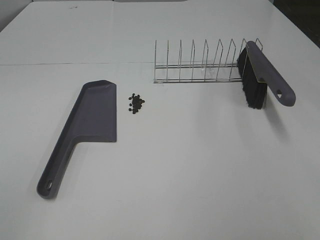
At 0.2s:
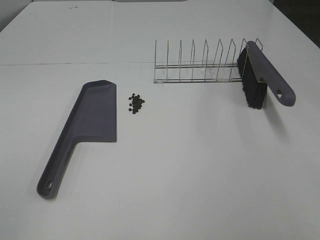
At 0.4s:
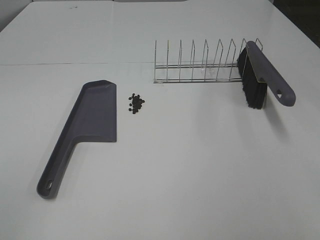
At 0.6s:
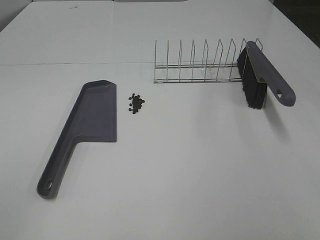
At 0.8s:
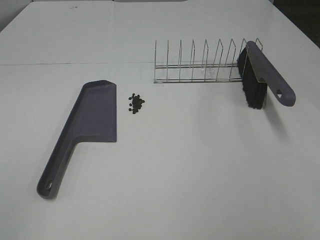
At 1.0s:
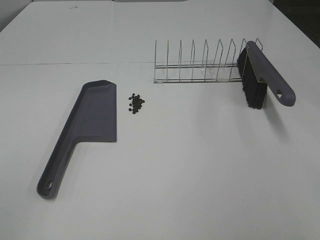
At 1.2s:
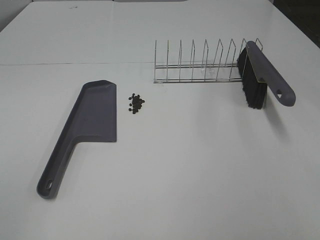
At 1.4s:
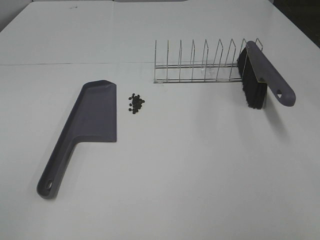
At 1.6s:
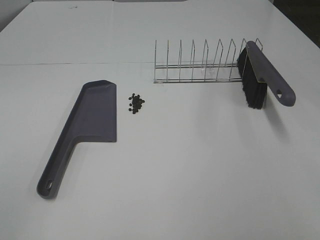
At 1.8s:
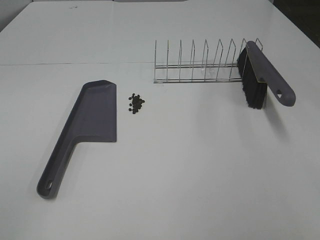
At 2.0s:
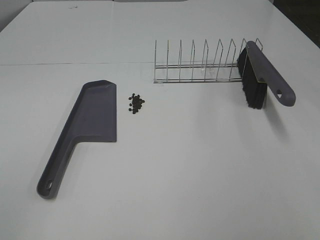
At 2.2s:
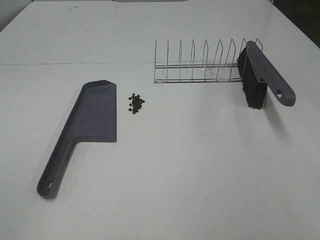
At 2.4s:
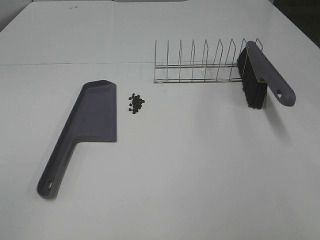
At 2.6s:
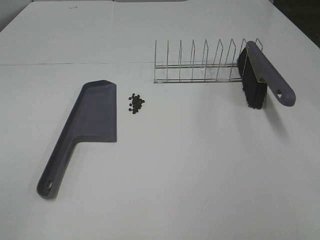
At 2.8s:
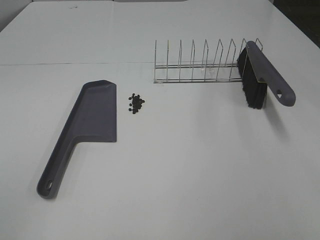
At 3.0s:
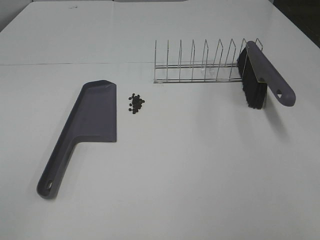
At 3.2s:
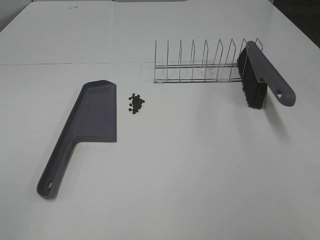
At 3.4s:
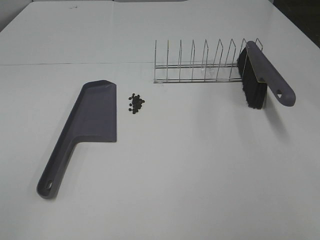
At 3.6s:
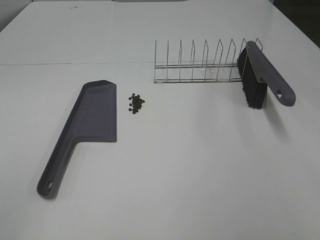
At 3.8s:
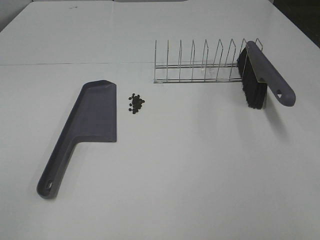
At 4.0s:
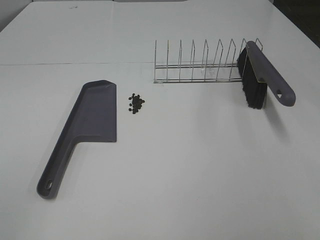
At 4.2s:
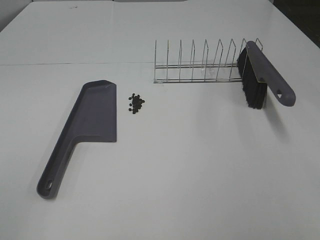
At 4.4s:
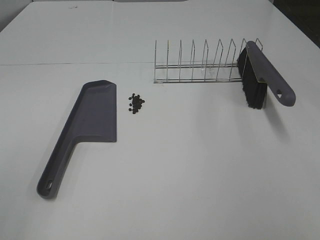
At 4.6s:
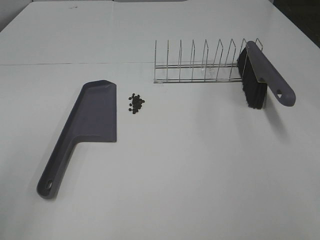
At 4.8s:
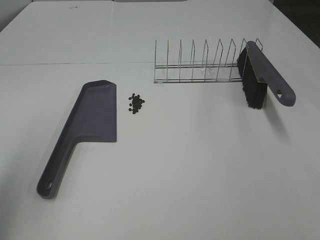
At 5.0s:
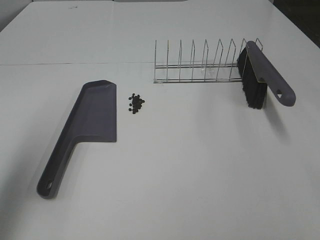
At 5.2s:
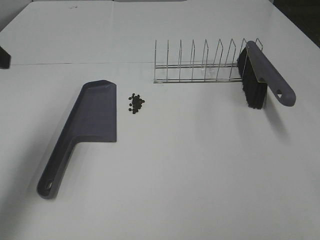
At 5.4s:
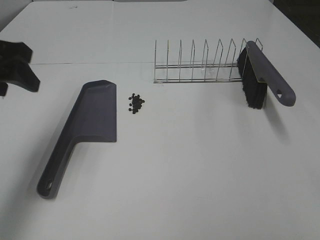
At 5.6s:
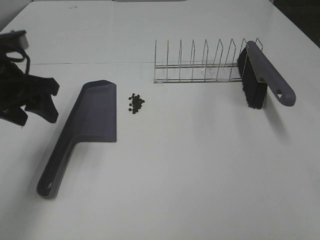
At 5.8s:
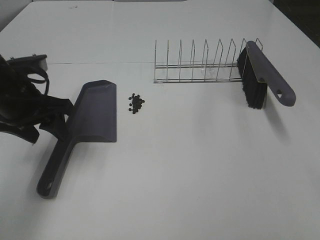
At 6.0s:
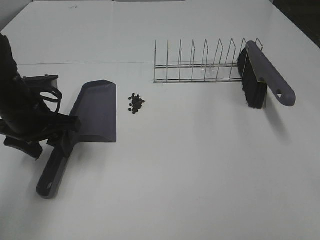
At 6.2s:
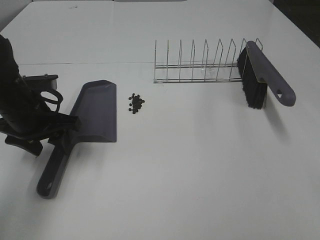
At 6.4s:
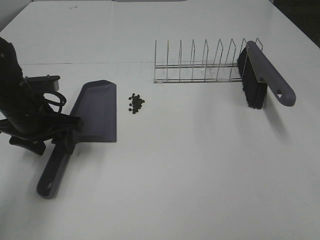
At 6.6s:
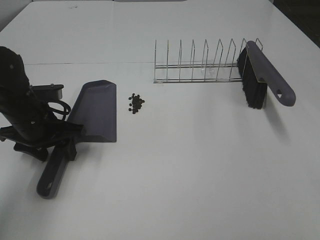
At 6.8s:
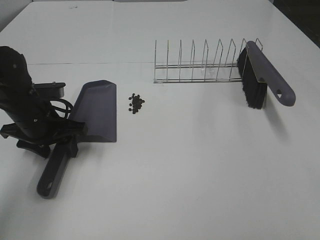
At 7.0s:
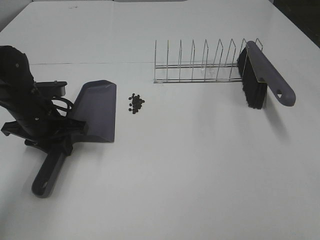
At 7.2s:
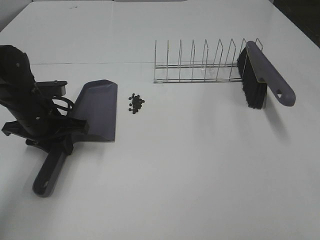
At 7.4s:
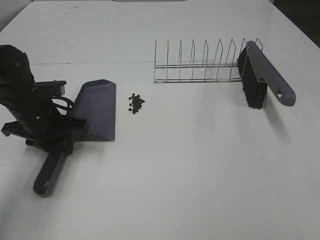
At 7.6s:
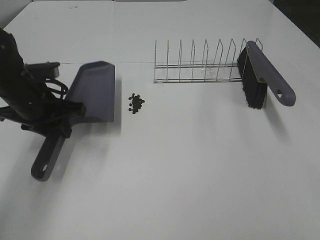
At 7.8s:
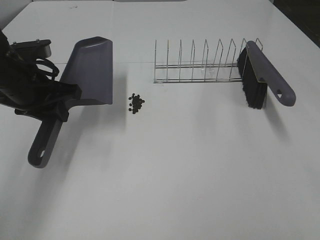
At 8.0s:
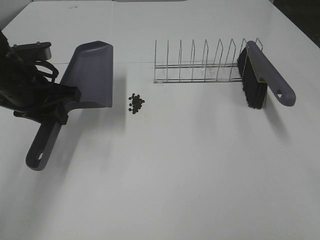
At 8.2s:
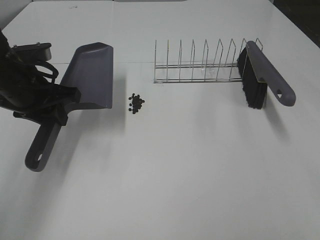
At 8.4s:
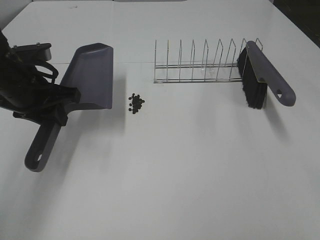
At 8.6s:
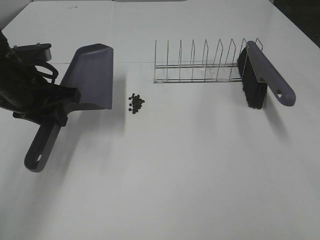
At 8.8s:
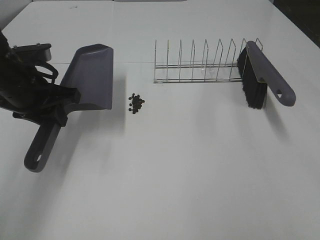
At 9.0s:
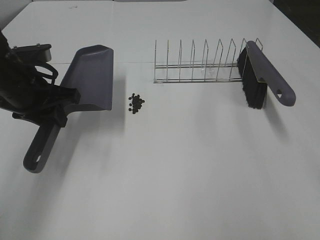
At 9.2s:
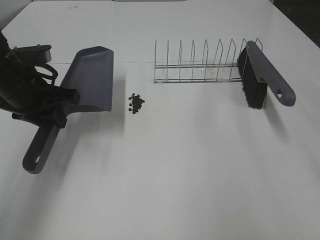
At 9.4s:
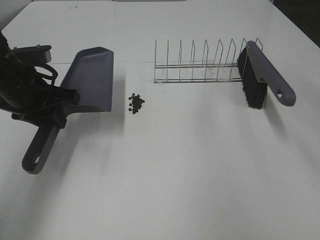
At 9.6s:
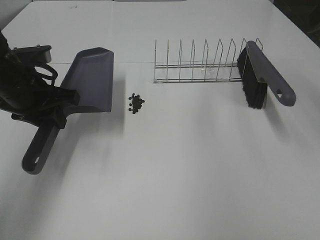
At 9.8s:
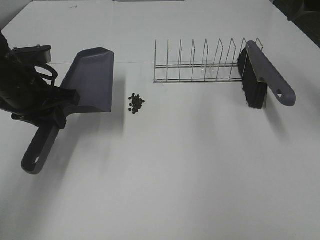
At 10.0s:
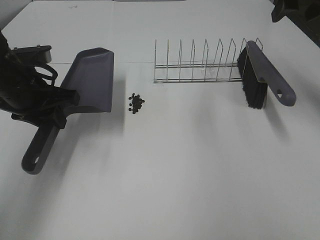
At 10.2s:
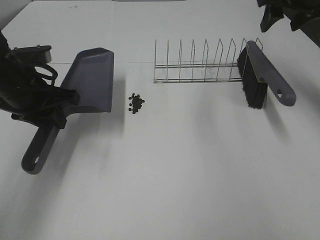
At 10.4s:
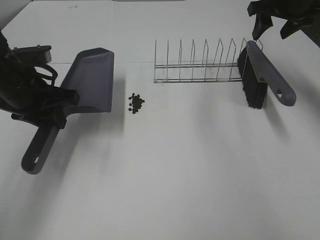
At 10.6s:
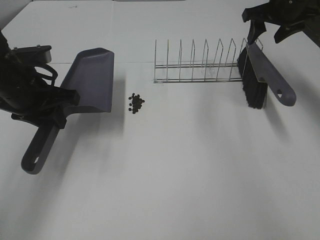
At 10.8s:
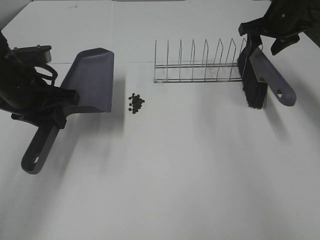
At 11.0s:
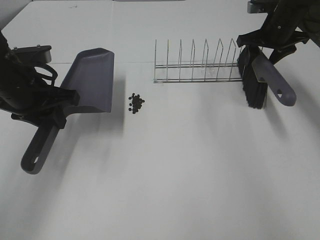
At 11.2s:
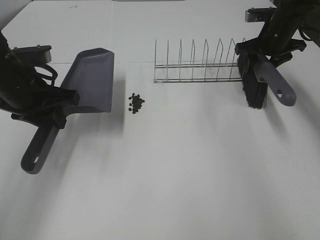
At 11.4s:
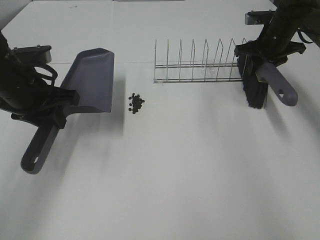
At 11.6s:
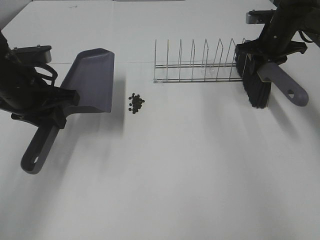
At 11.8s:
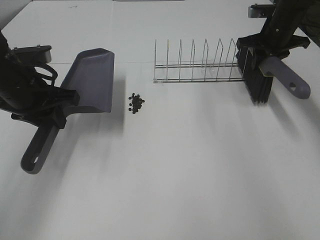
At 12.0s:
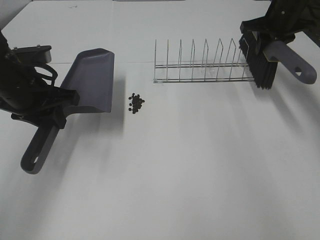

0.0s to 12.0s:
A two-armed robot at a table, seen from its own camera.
Task of the whole recording: Sweep Coffee Bean.
Step, 0.0s to 7.4s: Left hand: grab the dustpan.
Step, 8.4s to 11.6s: Right hand:grab the broom.
0.0s to 3.0s: Both grippers stay about where they are.
4.4s to 6.0s: The left gripper is displaced forward and downward by roughly 35 cm.
6.0s to 7.6s: The left gripper closes its fingers.
7.6s to 9.0s: The right gripper goes some 10 cm forward.
9.0s to 10.4s: The right gripper is displaced forward by about 40 cm, and closes its fingers.
10.4s to 12.0s: The right gripper closes up.

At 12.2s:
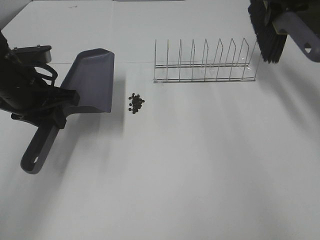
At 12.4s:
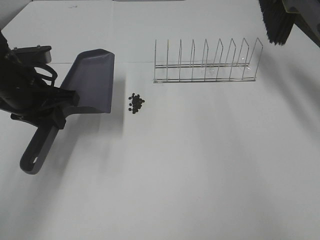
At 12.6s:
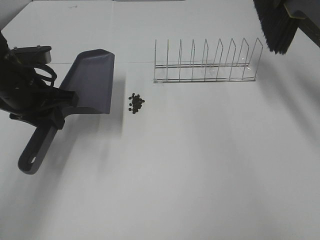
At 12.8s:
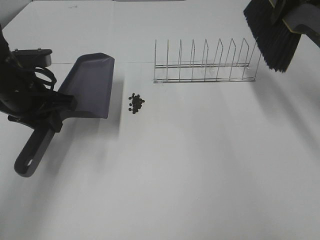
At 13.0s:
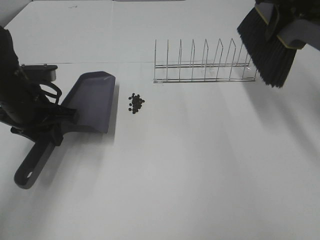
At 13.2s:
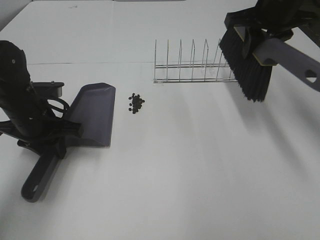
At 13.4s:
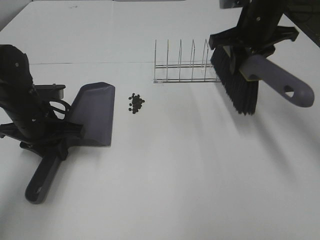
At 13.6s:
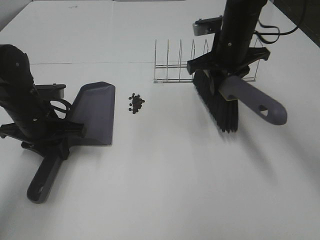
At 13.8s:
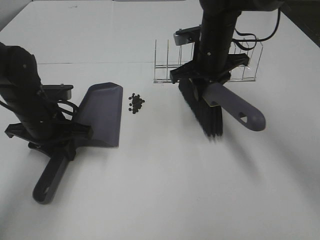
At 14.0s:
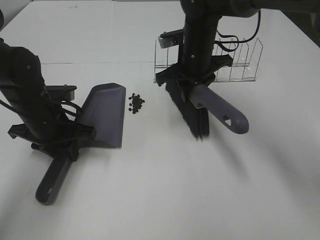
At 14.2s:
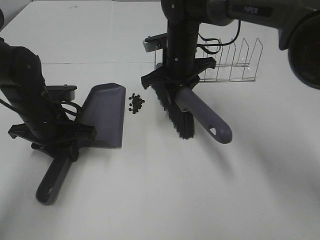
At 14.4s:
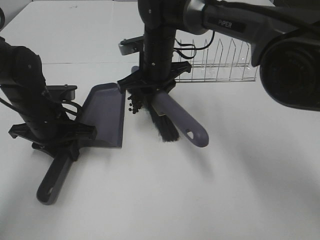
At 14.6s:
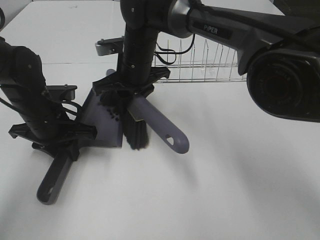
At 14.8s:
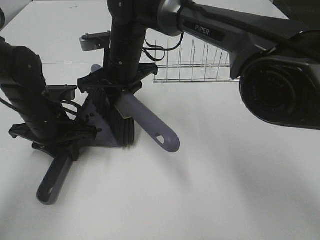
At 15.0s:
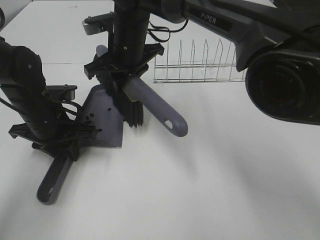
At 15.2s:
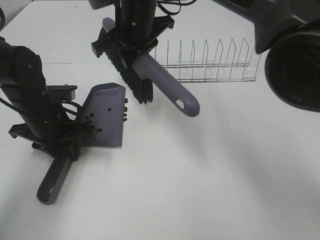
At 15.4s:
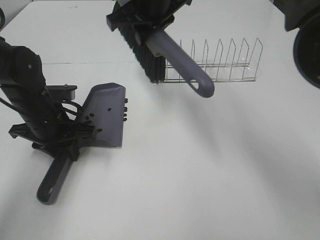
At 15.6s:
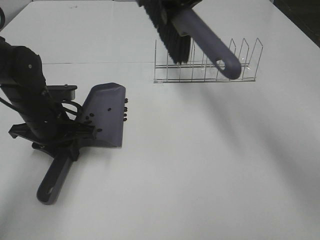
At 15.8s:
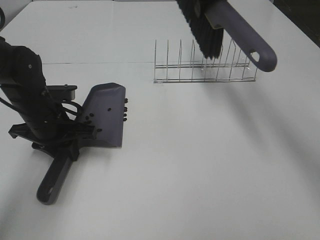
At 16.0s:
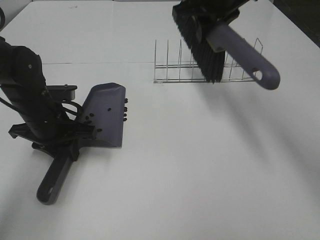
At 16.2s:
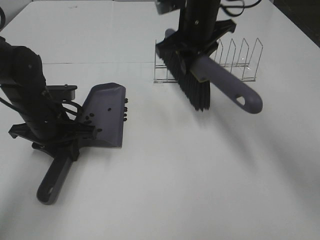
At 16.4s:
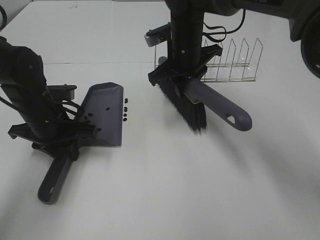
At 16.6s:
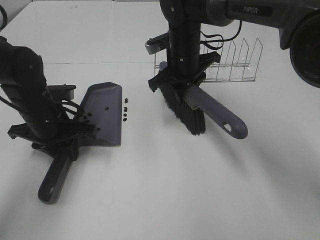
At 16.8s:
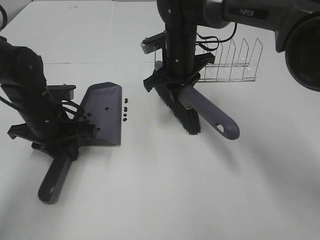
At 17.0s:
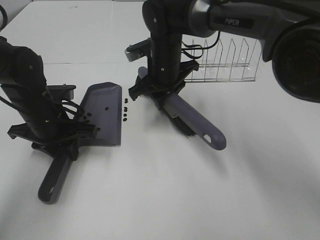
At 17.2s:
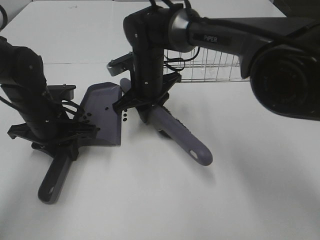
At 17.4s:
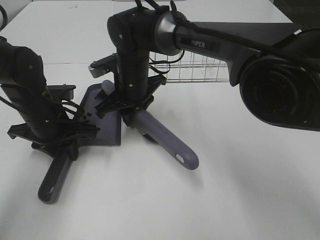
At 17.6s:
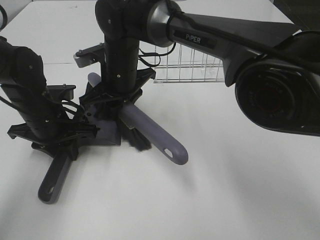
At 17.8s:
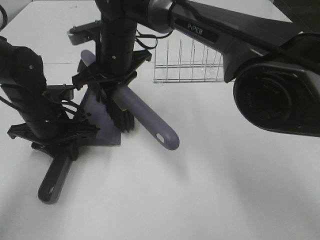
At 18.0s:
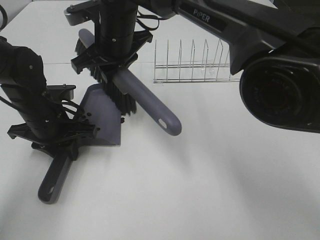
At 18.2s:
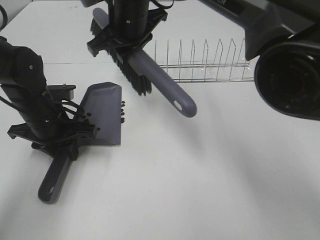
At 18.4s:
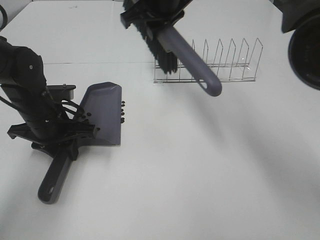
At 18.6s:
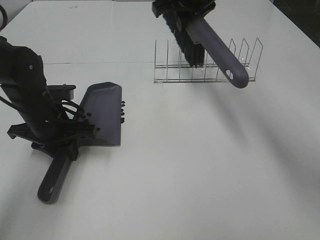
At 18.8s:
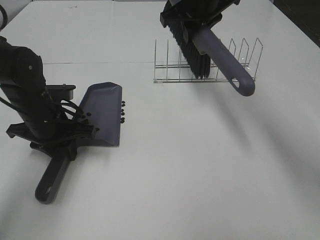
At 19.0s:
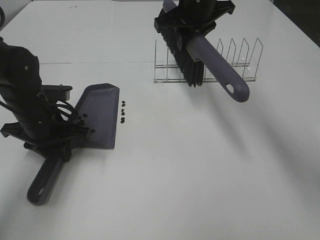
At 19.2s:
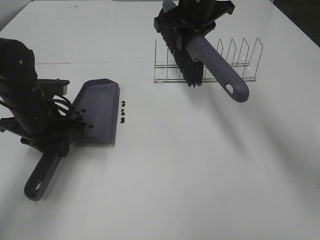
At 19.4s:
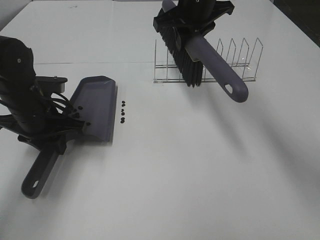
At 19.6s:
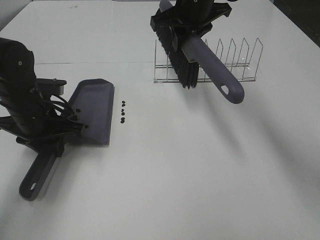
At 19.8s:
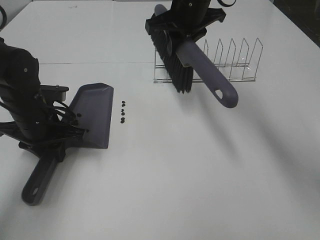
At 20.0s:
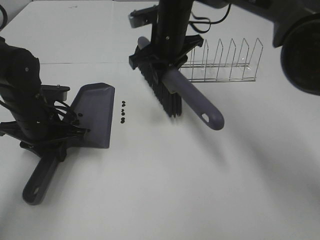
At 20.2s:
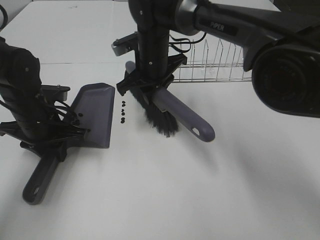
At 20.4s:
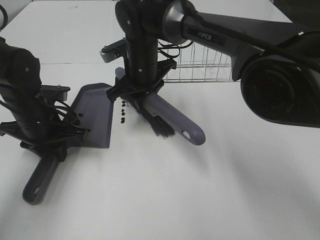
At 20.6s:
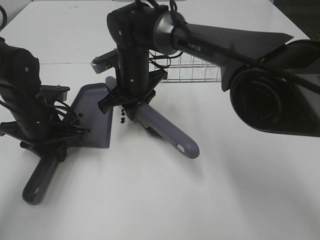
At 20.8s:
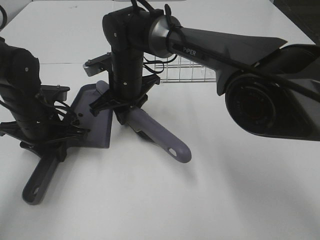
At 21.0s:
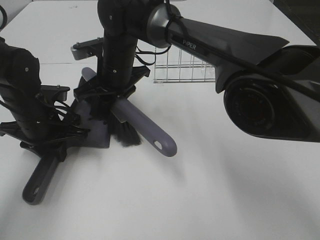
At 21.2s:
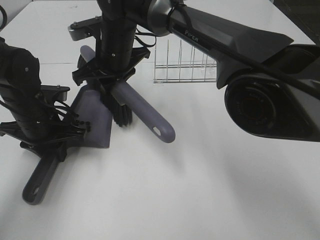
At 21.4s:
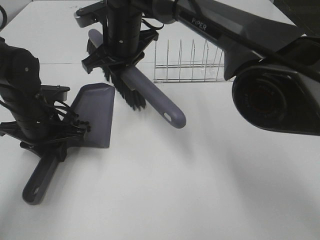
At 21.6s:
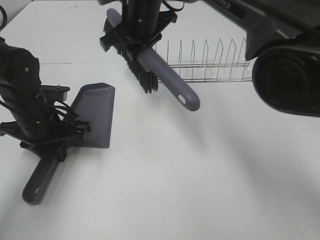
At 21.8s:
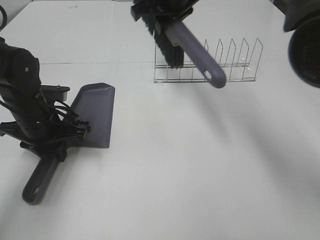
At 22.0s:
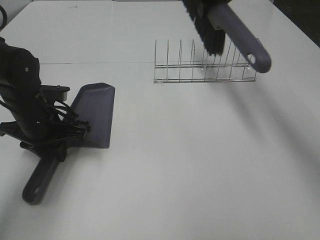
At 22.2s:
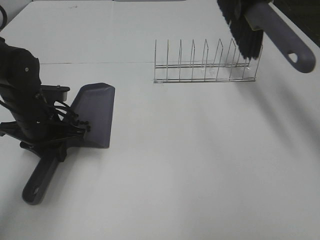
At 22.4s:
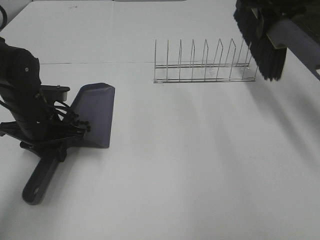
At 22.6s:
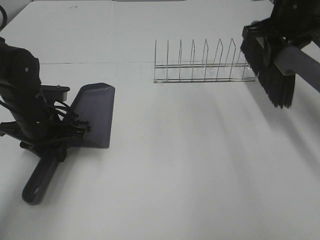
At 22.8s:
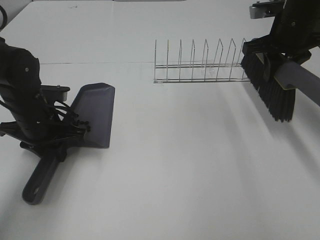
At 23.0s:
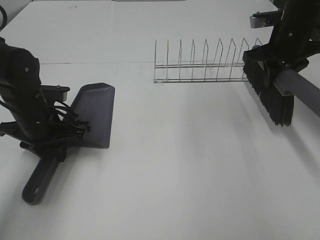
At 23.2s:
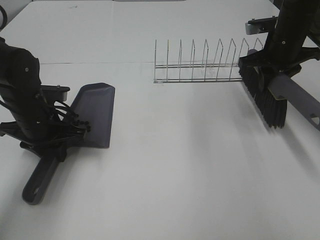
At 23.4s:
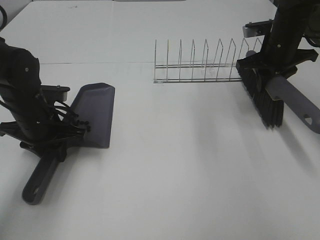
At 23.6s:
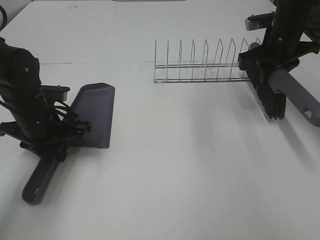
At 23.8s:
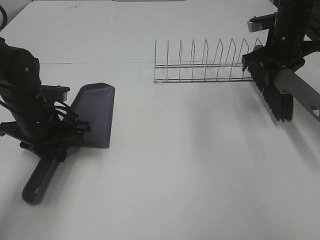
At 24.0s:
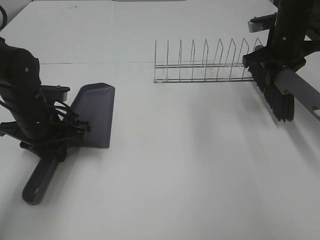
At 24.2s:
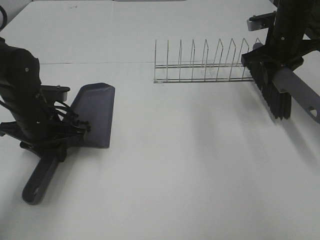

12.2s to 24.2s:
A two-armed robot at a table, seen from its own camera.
Task of the whole recording: Sweep Coffee Bean.
Step, 12.2s to 21.2s: Right hand:sweep the coffee beans into the dustpan.
12.2s to 13.8s: The right gripper heads to the left, downward and backward, covering approximately 20 cm; the left gripper moves downward, some 5 cm.
13.8s to 15.2s: The right gripper heads to the left and upward, covering about 15 cm.
15.2s to 16.6s: The right gripper goes about 10 cm downward and to the right.
16.6s to 18.2s: The right gripper travels to the left and upward by approximately 15 cm.
18.2s to 19.8s: The right gripper heads to the right, covering approximately 10 cm.
19.8s to 21.2s: The right gripper travels to the left and downward by approximately 15 cm.
21.2s to 22.6s: The right gripper is displaced to the right by some 30 cm.
22.6s to 24.2s: The right gripper travels downward by about 5 cm.
